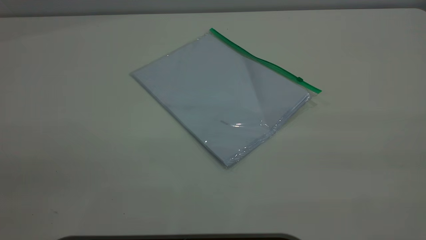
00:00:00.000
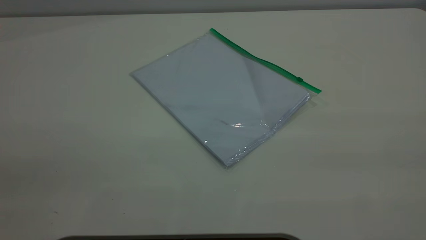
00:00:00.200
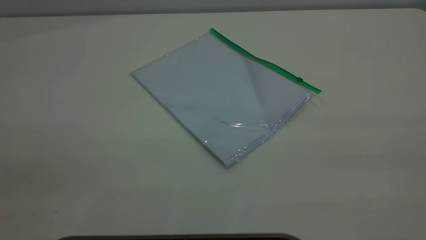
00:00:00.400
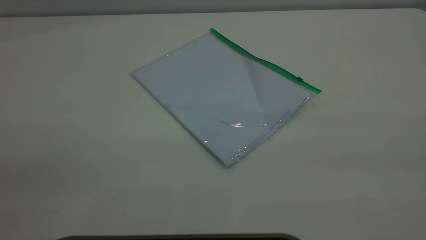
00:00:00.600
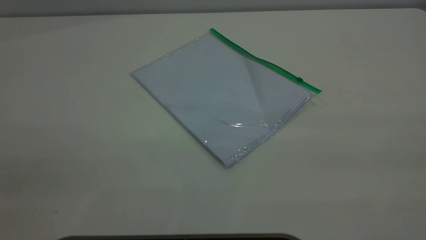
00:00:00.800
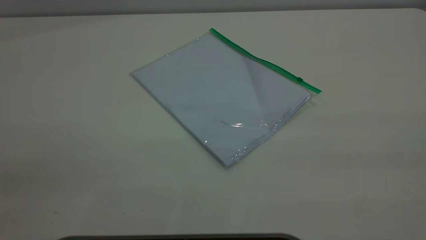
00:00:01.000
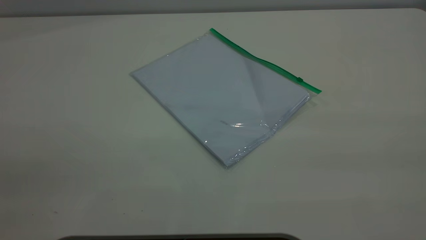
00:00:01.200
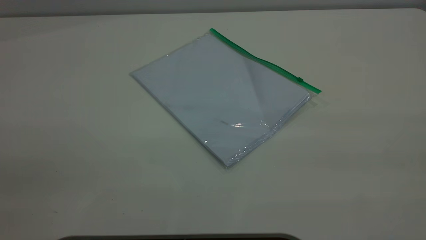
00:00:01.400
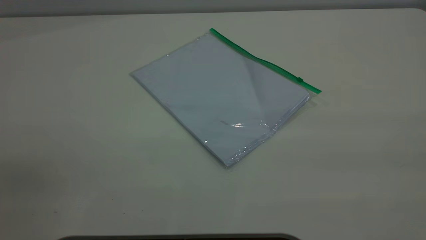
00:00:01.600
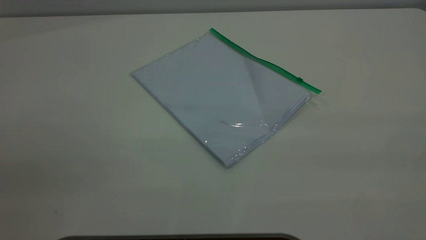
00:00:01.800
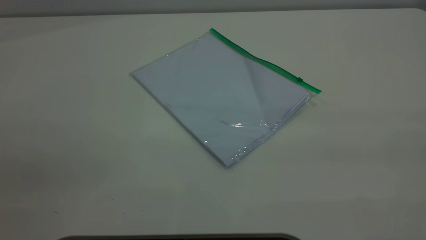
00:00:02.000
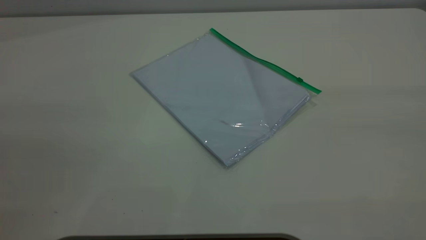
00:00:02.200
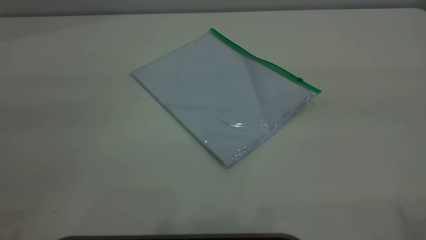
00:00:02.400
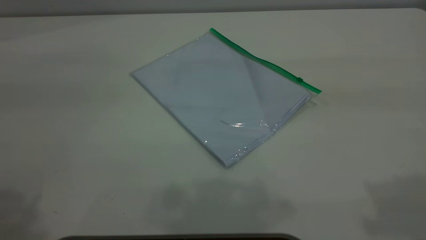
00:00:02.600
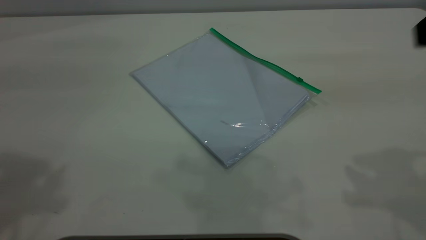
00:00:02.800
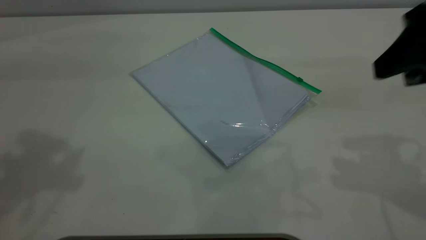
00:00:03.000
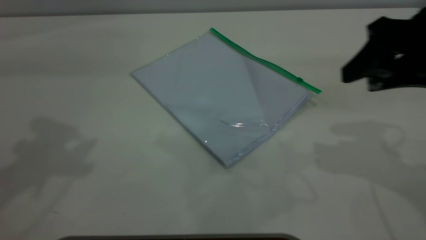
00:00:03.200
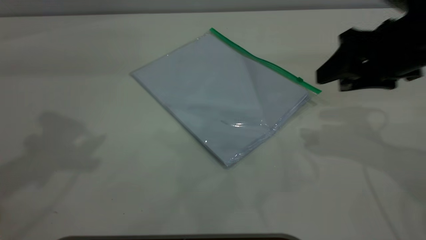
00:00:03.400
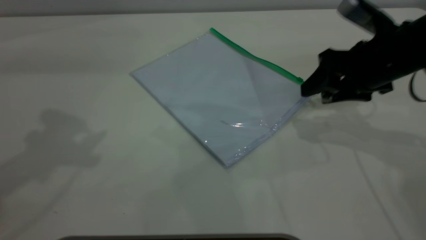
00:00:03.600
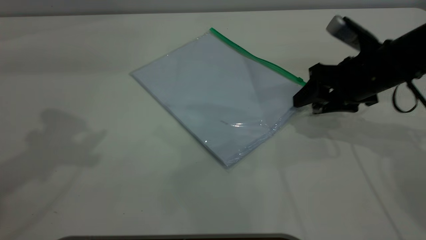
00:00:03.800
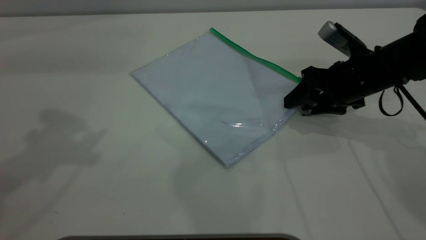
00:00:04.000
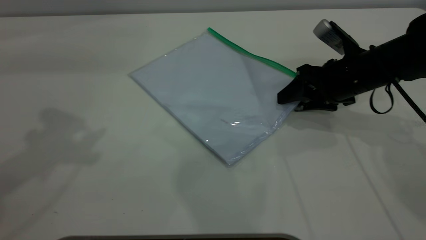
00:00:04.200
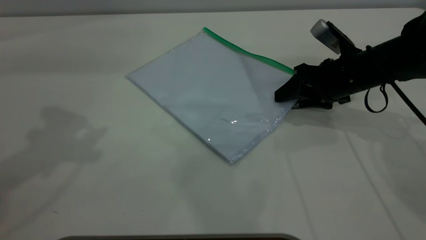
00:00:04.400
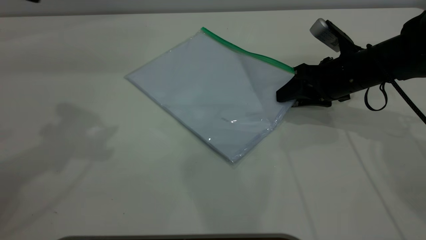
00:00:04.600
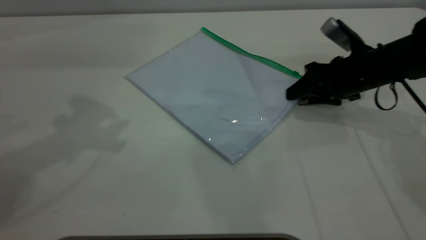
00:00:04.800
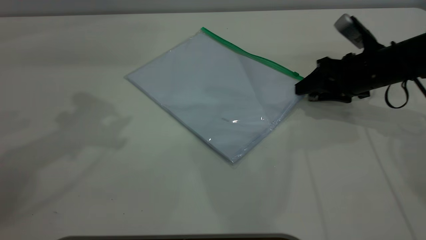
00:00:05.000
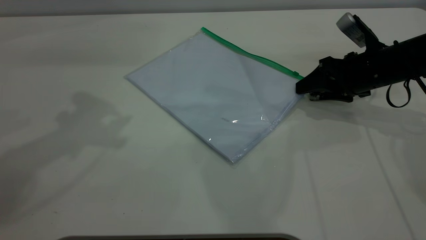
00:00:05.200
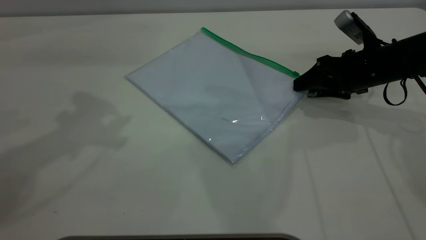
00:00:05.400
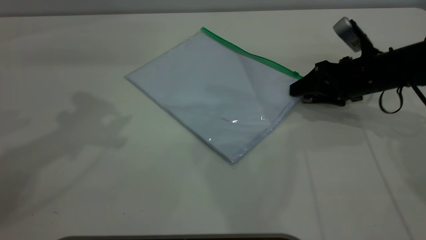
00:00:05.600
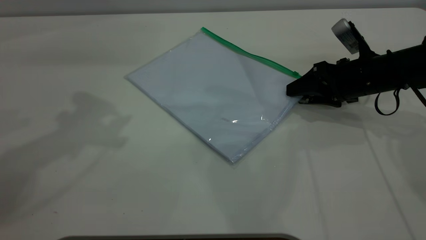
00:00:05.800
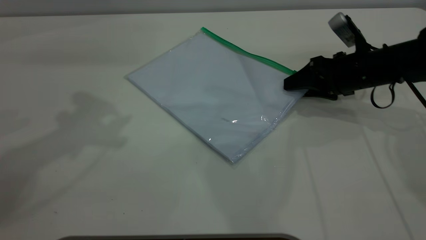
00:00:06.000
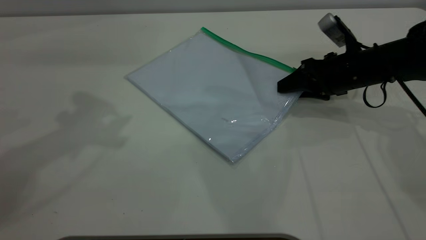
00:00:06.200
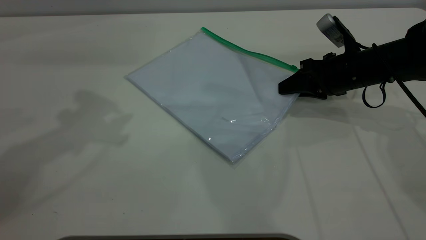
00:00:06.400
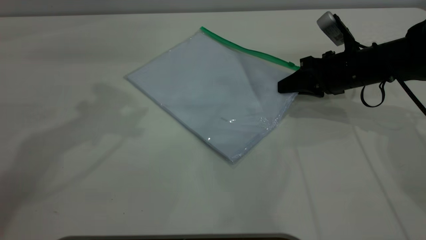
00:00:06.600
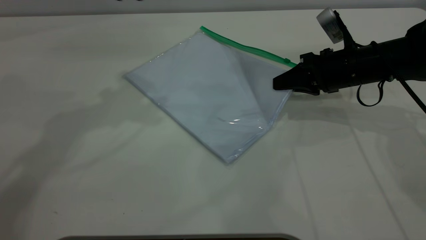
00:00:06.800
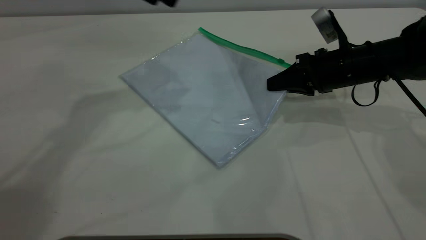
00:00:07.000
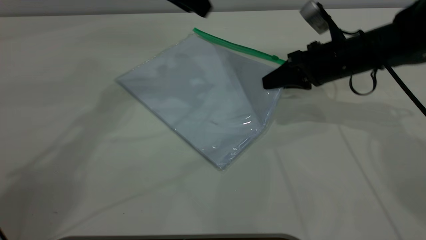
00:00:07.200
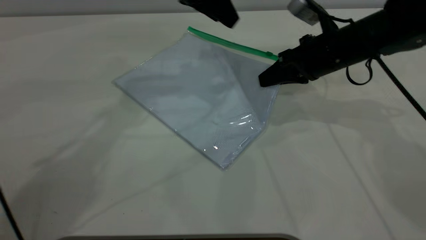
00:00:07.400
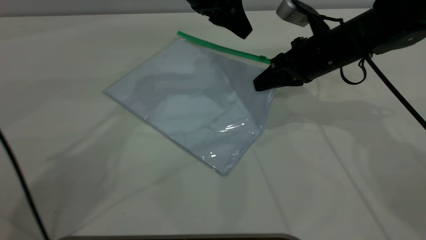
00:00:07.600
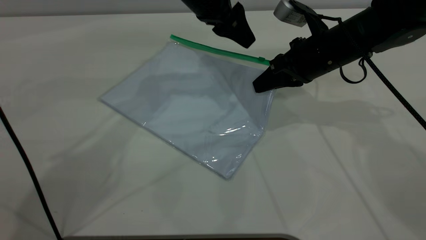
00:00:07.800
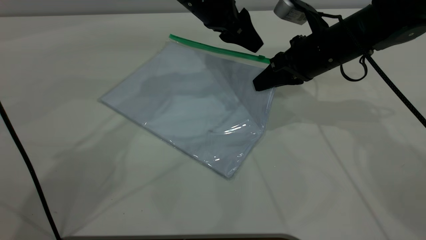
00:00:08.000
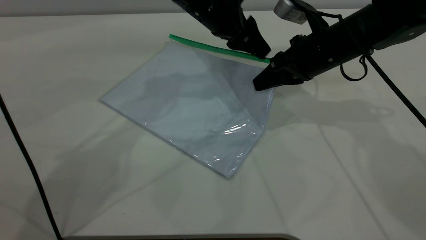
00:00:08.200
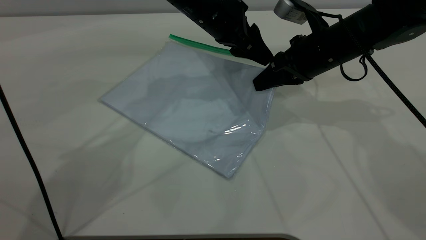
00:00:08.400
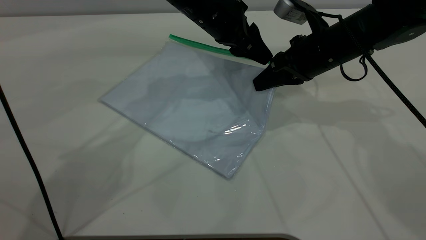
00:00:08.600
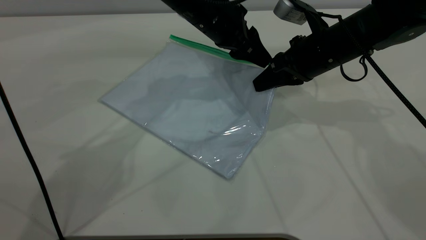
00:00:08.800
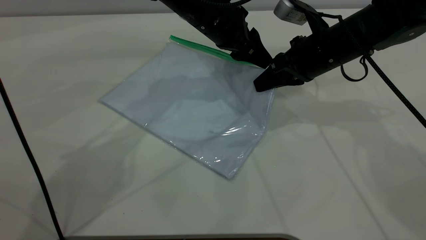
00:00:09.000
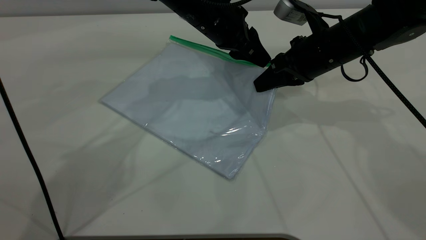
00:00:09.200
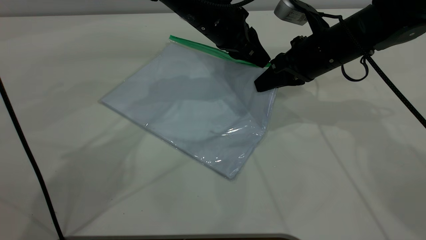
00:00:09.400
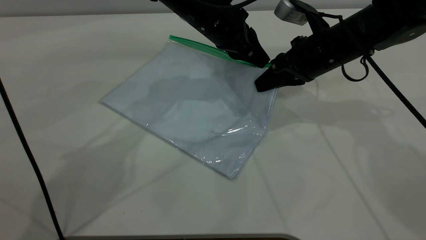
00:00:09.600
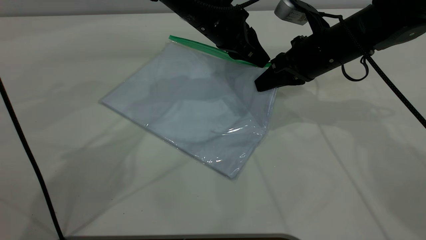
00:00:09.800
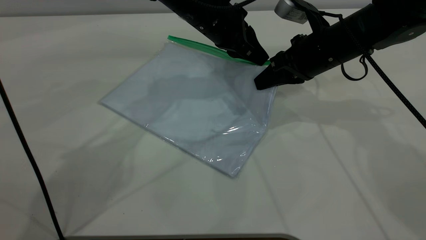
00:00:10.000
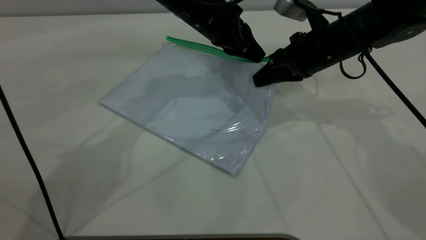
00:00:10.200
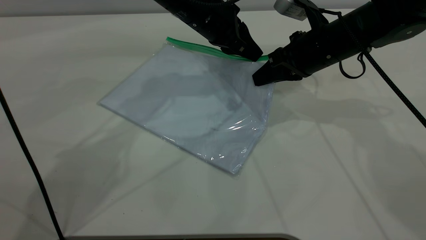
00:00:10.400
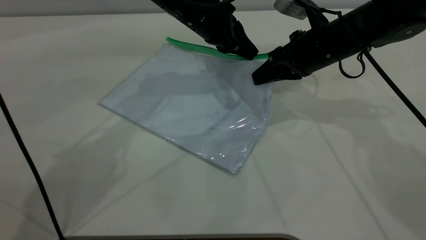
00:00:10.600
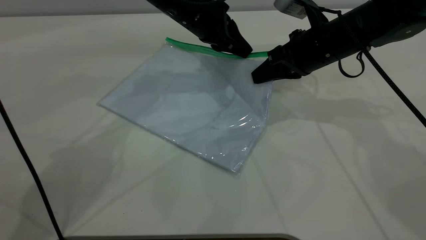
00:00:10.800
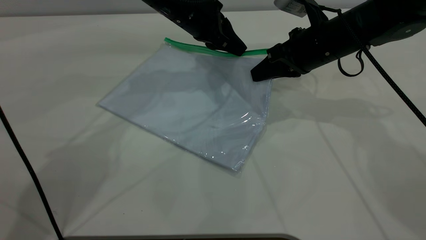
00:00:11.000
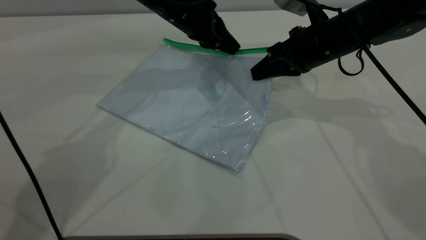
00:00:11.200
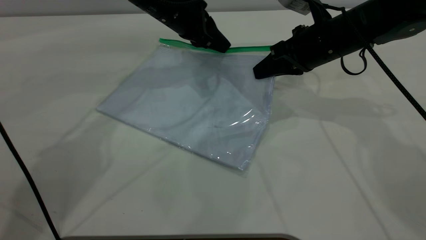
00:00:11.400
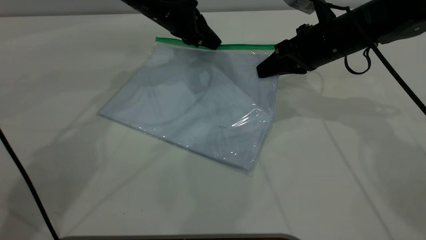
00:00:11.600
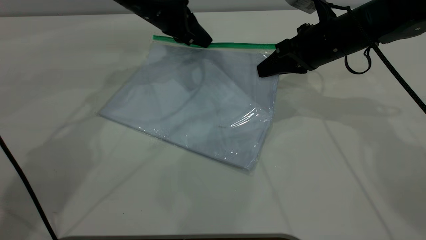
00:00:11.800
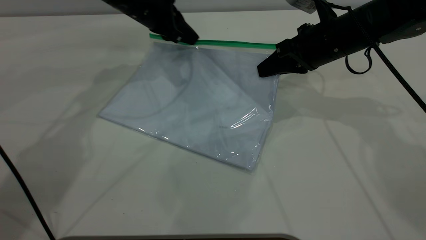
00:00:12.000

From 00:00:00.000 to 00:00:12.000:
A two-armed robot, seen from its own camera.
Step, from 00:00:00.000 to 00:00:07.000: Pick up the transparent plastic bag with the right gripper.
From 00:00:00.000 to 00:00:01.600: The two grippers keep their place.
From 00:00:01.600 to 00:00:03.000: The right gripper goes some 30 cm forward and downward.
From 00:00:03.000 to 00:00:04.400: The right gripper shifts some 25 cm downward and forward, while the left gripper changes place by some 5 cm.
From 00:00:04.400 to 00:00:06.000: The grippers move only a little.
From 00:00:06.000 to 00:00:07.600: The left gripper heads to the right, forward and downward, covering roughly 25 cm. Meanwhile the right gripper travels to the left by roughly 5 cm, and closes.
From 00:00:07.600 to 00:00:09.000: The left gripper goes about 5 cm downward.
From 00:00:09.000 to 00:00:10.400: The left gripper closes up.
From 00:00:10.400 to 00:00:12.000: The left gripper goes approximately 10 cm to the left and forward.

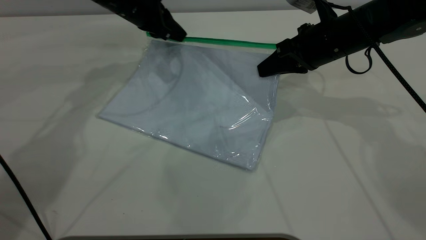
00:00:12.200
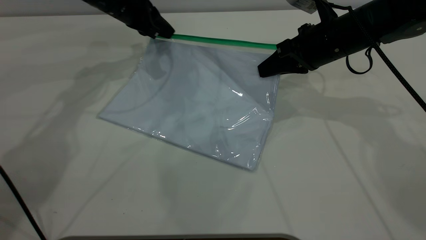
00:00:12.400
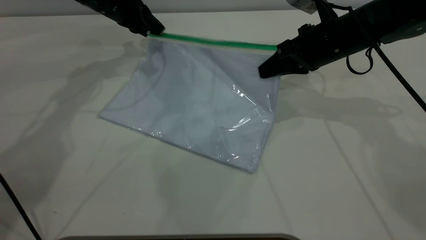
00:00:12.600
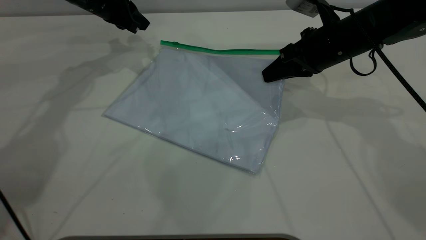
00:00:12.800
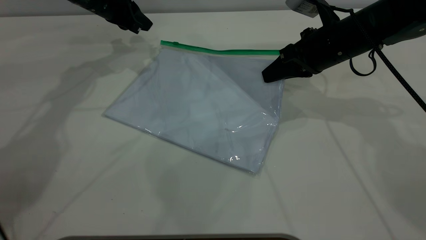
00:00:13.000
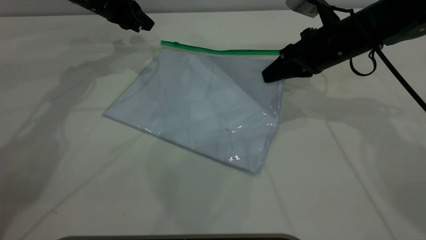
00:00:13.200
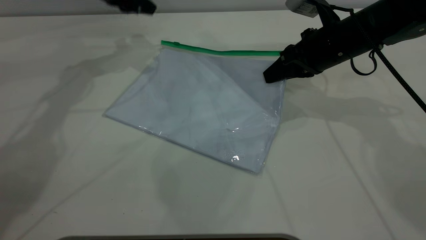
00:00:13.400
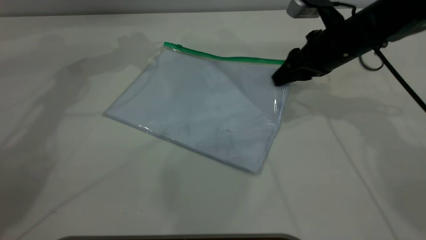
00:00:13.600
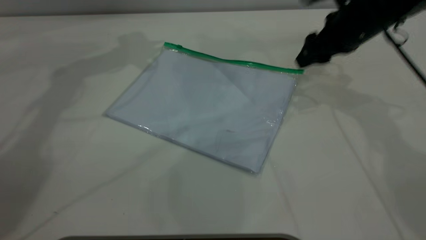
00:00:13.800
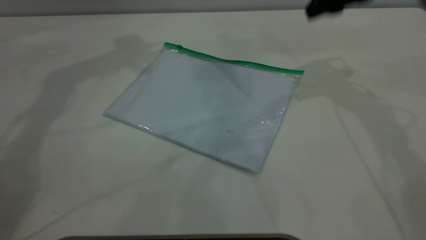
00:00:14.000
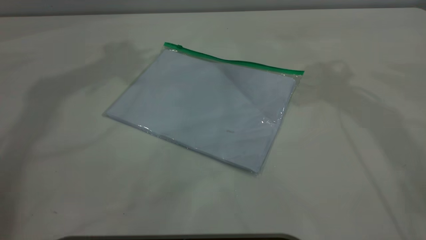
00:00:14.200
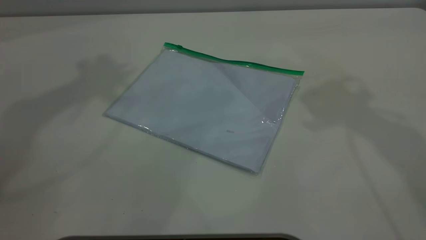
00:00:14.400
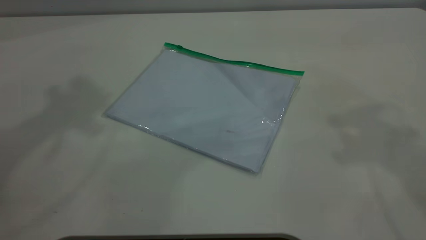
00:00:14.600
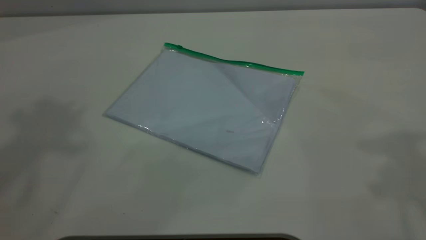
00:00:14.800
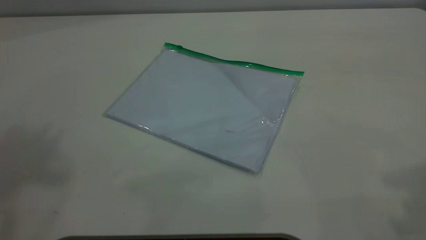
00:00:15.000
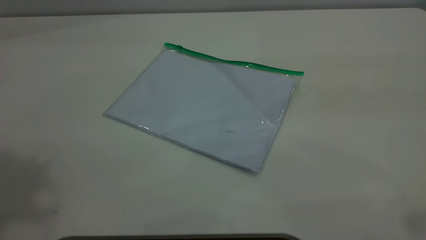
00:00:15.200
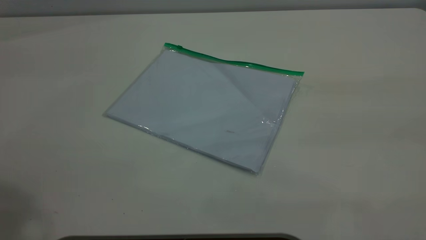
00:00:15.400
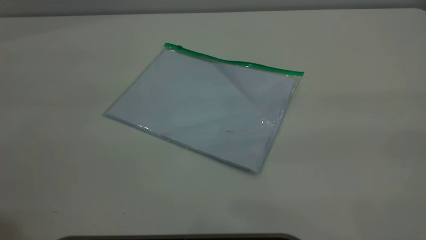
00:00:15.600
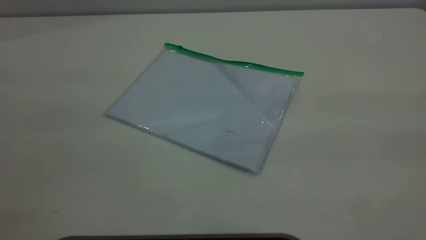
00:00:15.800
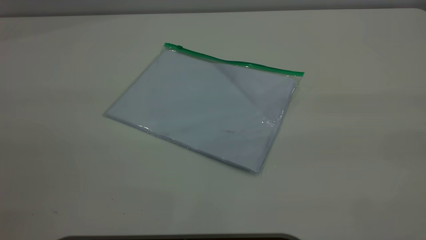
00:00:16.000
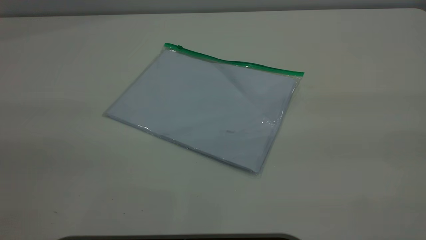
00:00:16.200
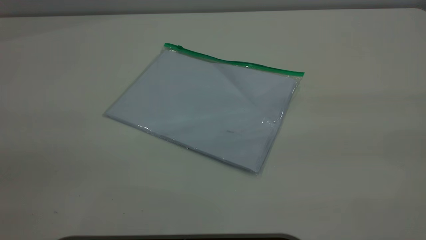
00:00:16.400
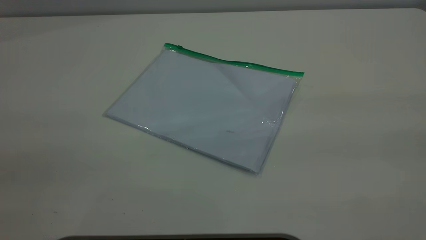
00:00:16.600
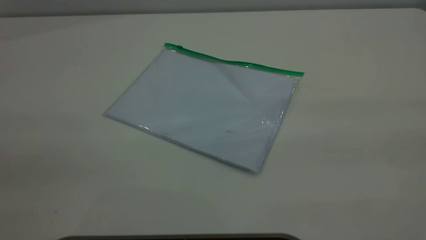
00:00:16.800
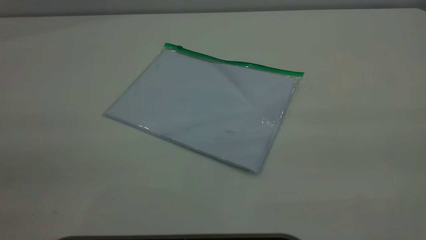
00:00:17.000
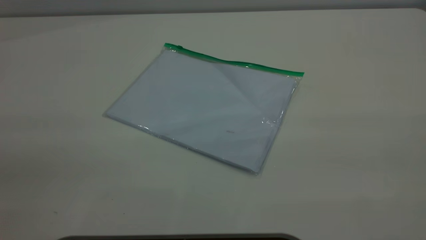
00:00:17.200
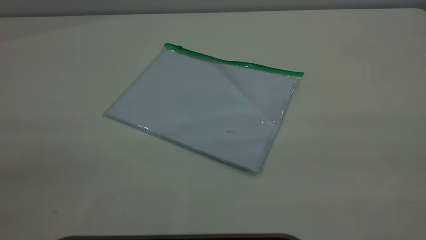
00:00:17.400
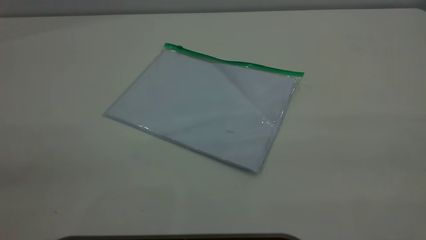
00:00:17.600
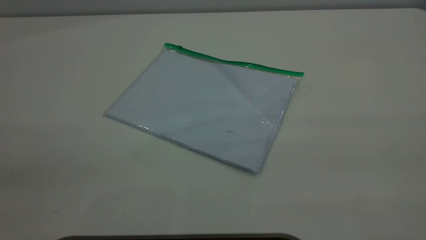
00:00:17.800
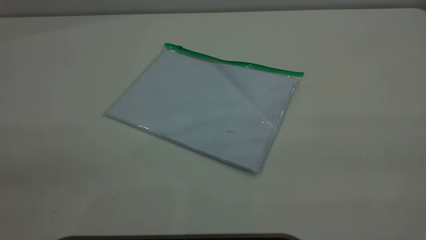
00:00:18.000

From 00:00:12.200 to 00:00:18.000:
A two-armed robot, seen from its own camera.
Step, from 00:00:13.600 to 00:00:15.600: Place the transparent plastic bag.
From 00:00:12.200 to 00:00:13.600: The right gripper opens its fingers. The left gripper moves upward, some 10 cm.
From 00:00:13.600 to 00:00:15.000: Both grippers move upward and backward, about 50 cm.
